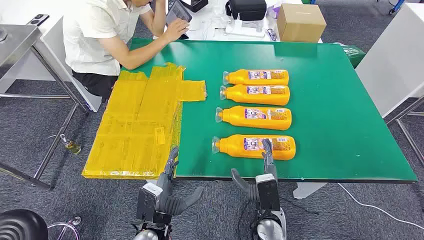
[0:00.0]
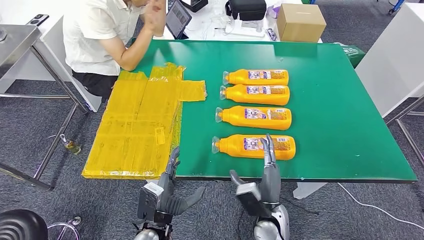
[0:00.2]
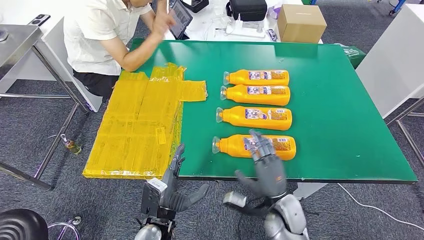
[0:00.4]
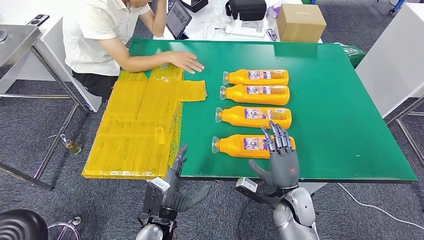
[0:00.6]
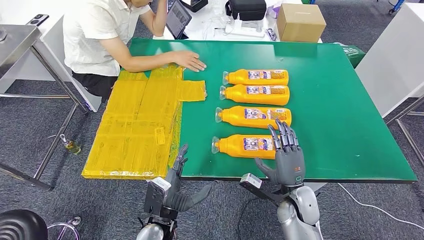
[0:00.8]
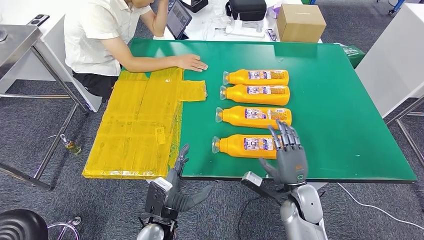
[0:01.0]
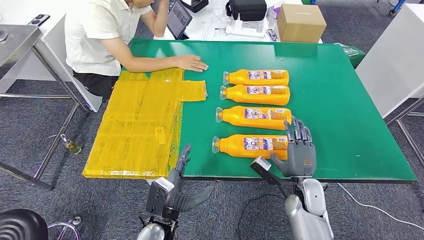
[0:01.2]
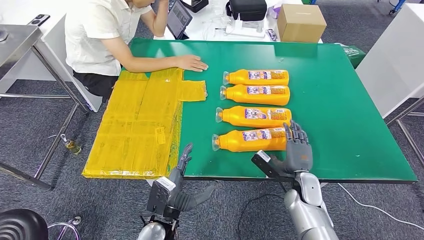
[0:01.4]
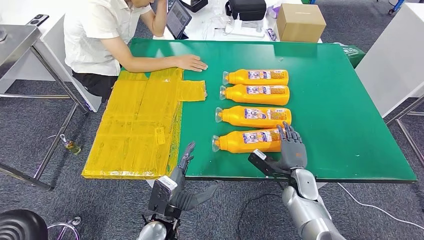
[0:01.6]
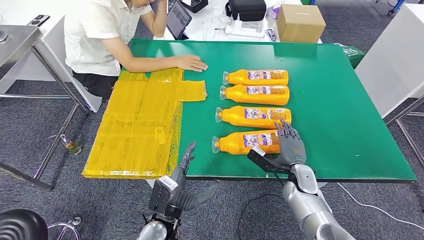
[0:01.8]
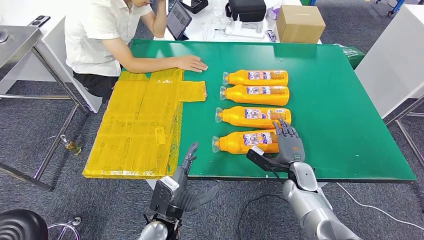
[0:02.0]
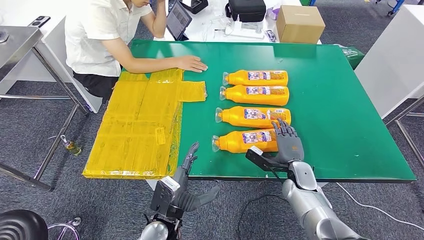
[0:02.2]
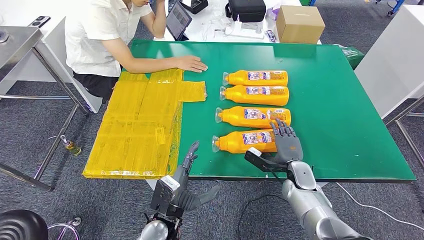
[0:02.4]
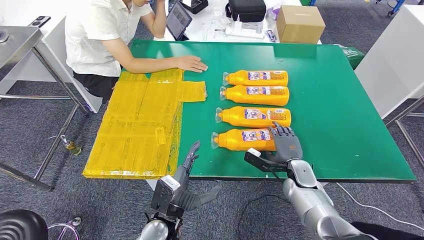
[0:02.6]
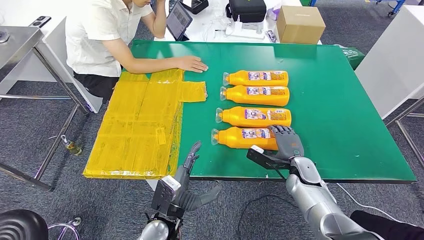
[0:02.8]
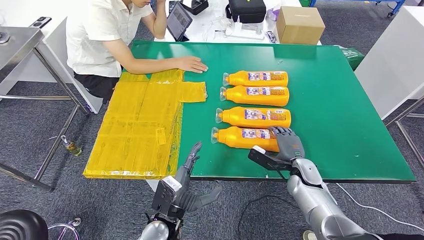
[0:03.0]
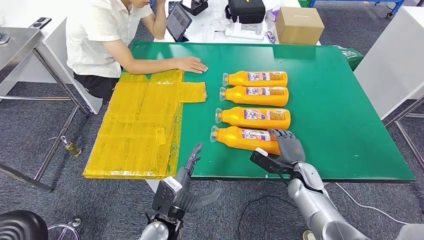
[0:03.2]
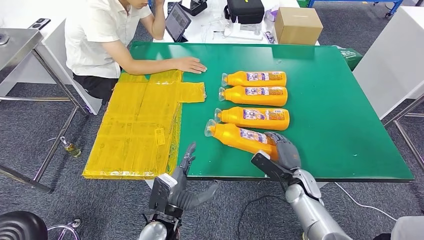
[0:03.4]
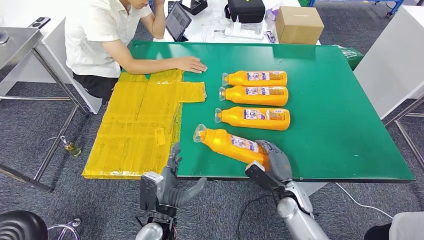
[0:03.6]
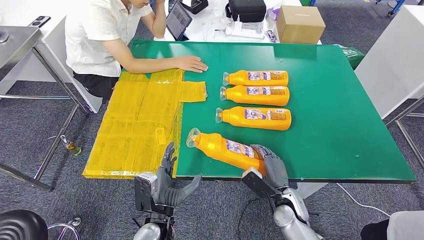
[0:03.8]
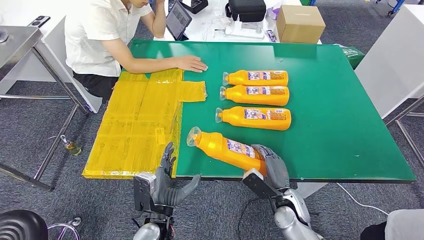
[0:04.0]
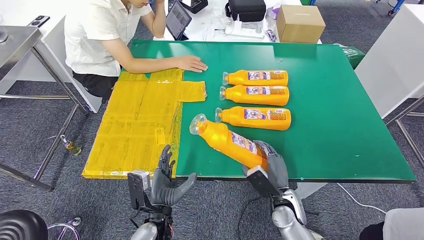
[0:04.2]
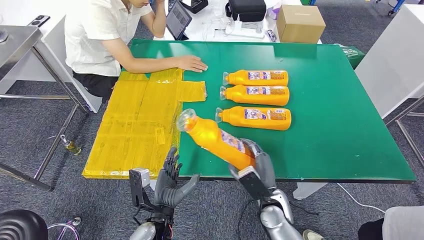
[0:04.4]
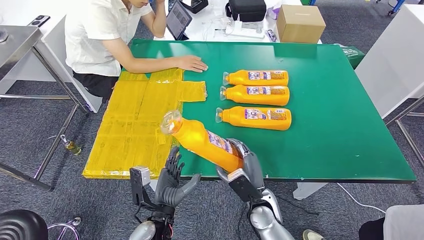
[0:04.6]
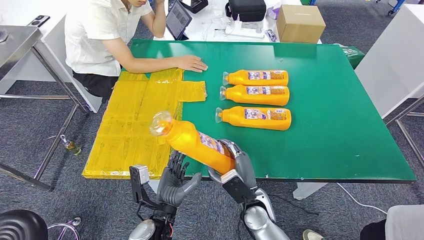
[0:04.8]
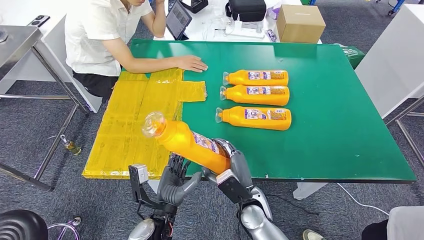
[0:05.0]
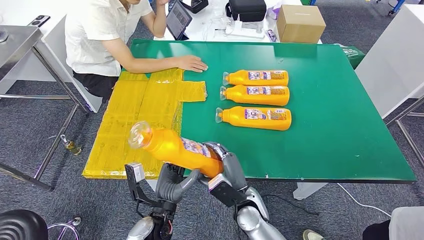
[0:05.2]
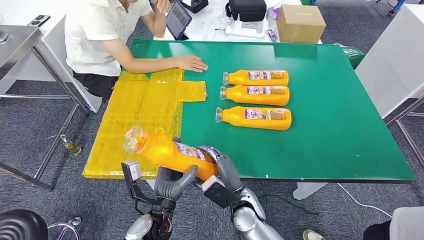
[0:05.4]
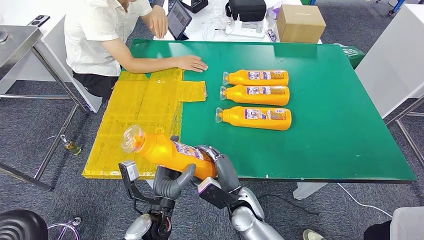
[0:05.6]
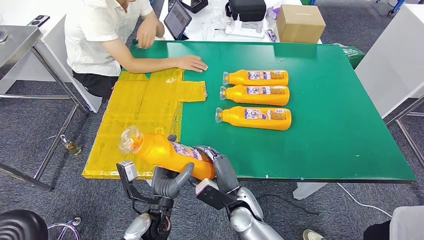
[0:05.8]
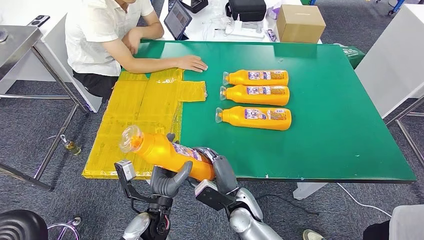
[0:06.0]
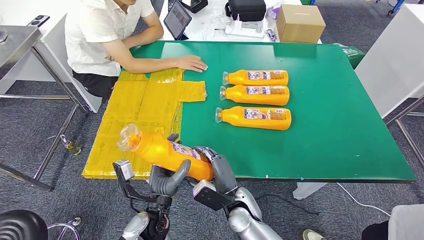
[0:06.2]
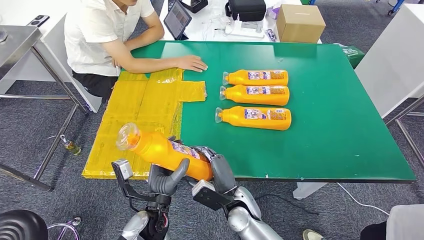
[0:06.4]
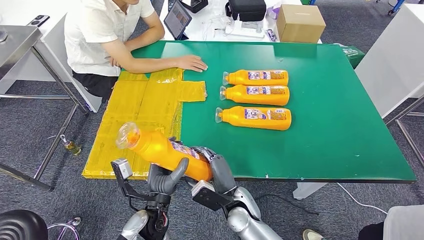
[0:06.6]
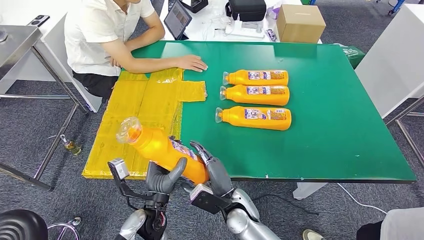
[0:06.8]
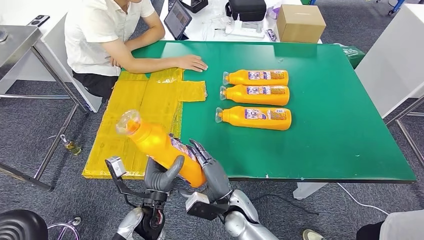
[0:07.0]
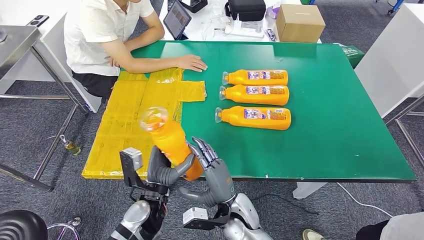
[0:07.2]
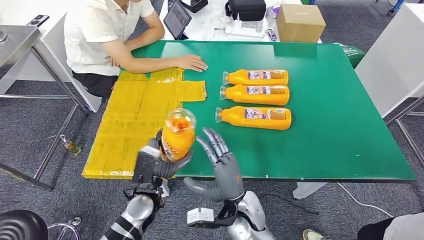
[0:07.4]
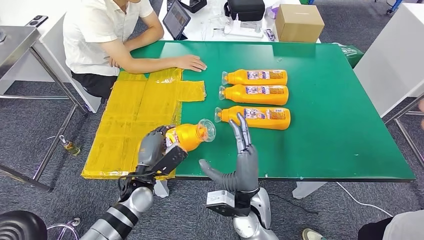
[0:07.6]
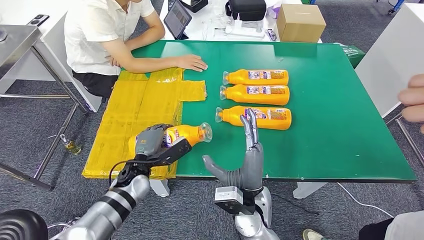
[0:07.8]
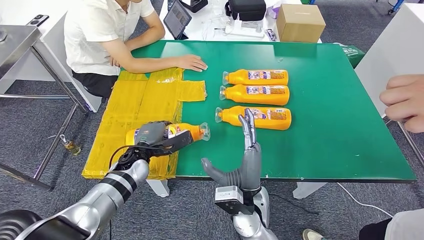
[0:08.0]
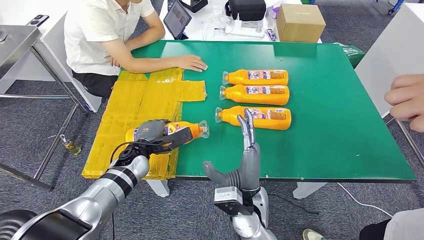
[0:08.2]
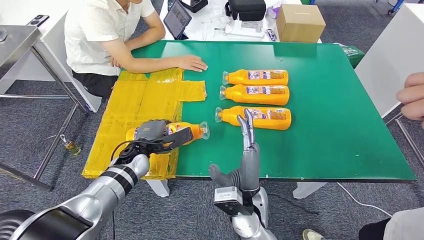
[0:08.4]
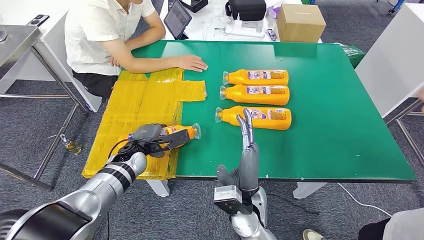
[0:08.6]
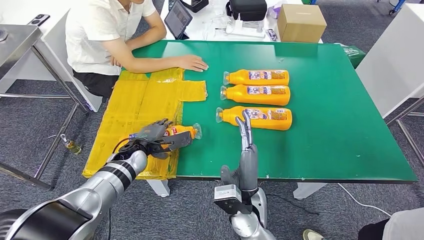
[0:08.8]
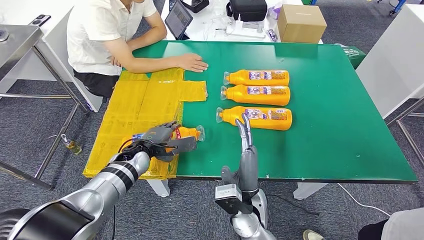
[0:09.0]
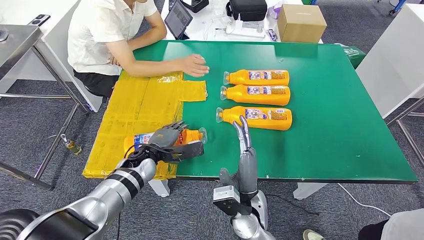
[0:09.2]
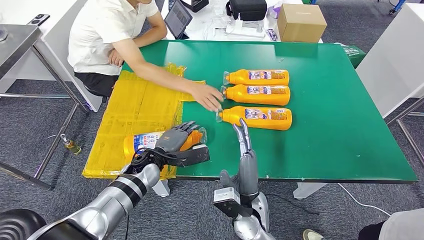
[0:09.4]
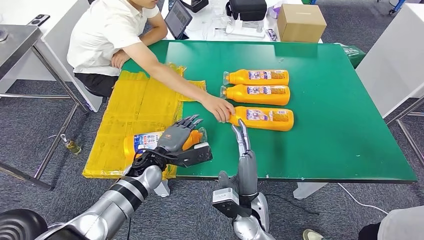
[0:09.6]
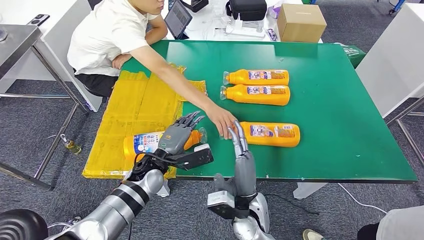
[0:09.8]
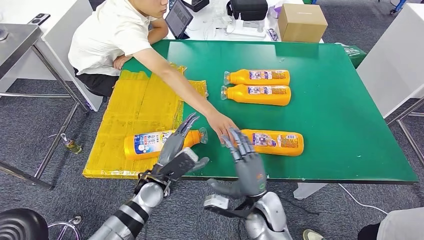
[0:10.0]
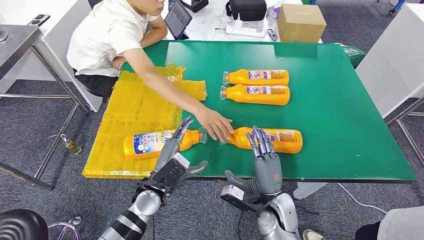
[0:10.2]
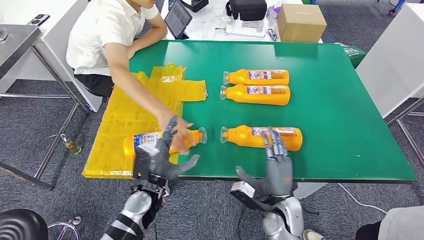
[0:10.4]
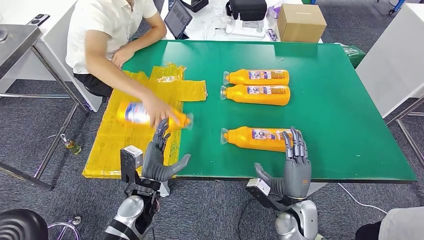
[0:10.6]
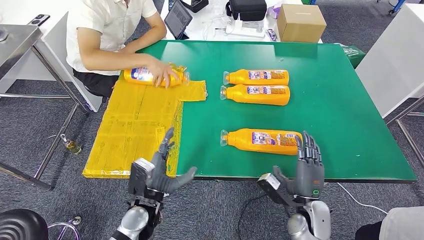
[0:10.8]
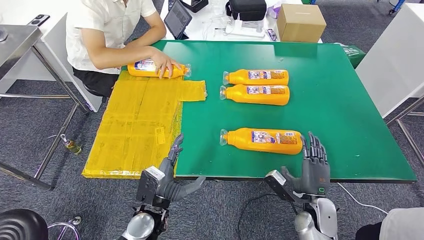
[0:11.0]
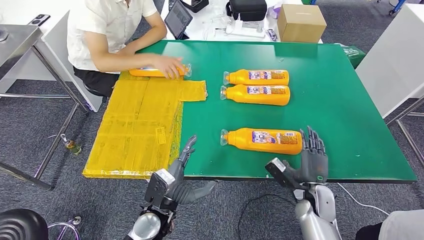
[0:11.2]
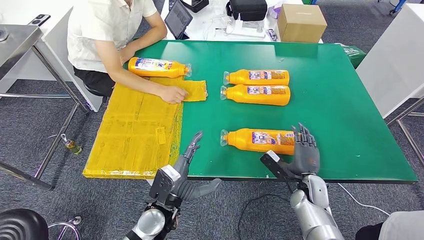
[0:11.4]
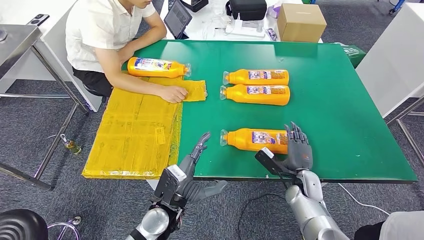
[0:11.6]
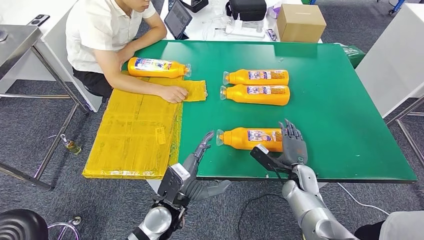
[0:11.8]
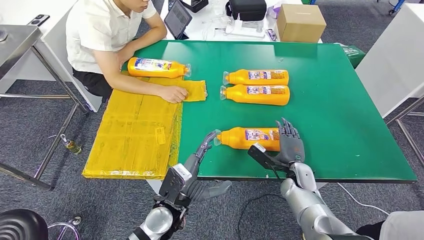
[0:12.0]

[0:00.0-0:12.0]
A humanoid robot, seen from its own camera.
Step, 0:00.0 to 0:06.0: Take the bottle from the table.
Step, 0:06.2 to 0:10.0: Flip the bottle to face forward.
0:01.6 to 0:03.0: The hands make only small movements.
0:03.0 to 0:04.4: The right hand goes about 15 cm to the left and backward.
0:04.4 to 0:06.0: The right hand shifts some 10 cm to the left.
0:06.0 to 0:07.6: The right hand is displaced upward by some 5 cm. The left hand is displaced forward and to the left by approximately 10 cm.
0:10.4 to 0:12.0: The left hand goes roughly 5 cm to the right. The right hand is displaced forward and to the right by some 15 cm.

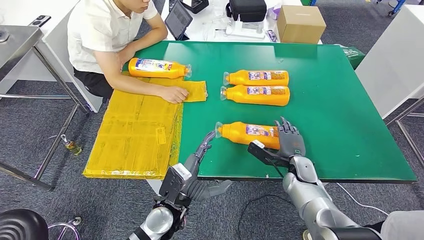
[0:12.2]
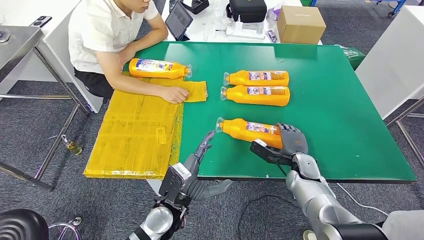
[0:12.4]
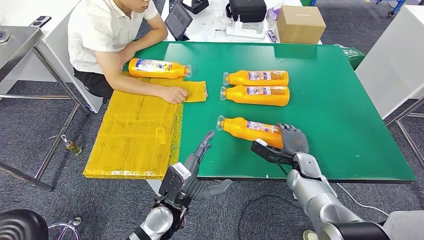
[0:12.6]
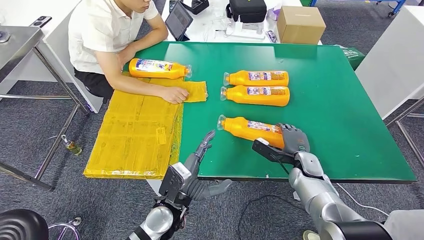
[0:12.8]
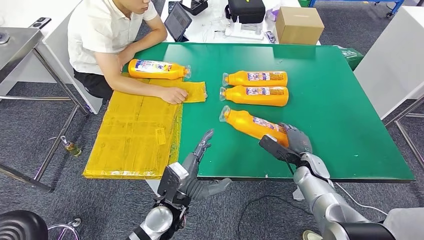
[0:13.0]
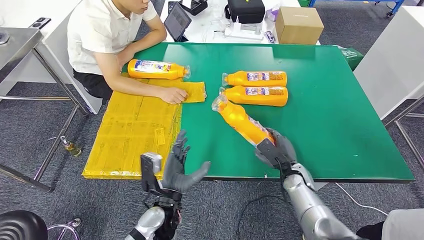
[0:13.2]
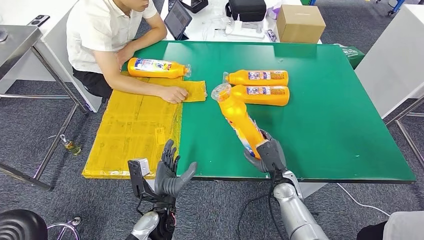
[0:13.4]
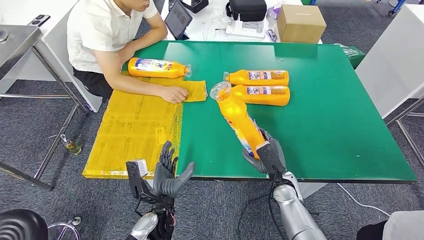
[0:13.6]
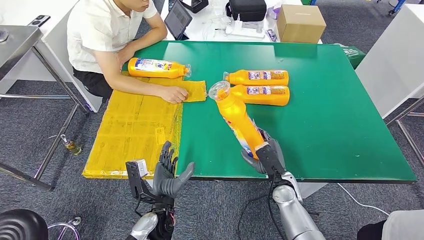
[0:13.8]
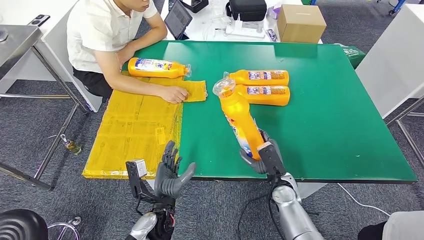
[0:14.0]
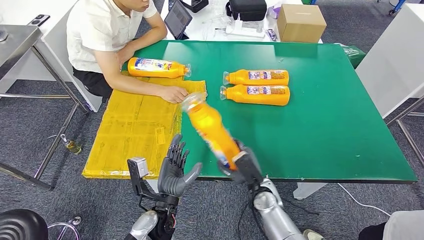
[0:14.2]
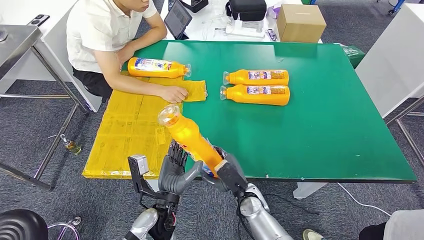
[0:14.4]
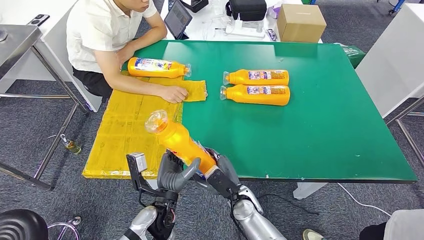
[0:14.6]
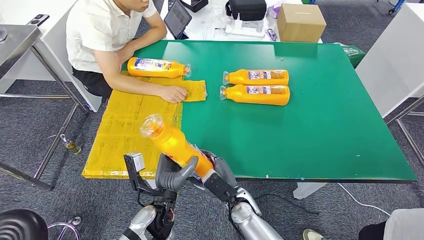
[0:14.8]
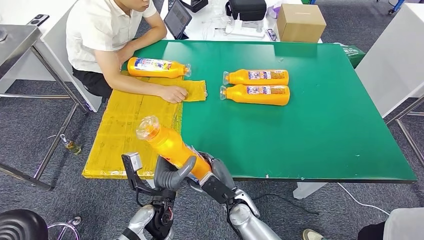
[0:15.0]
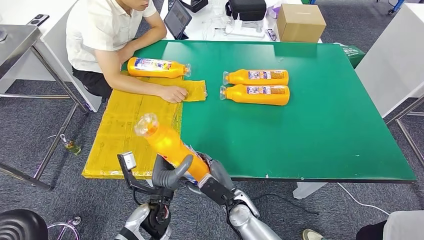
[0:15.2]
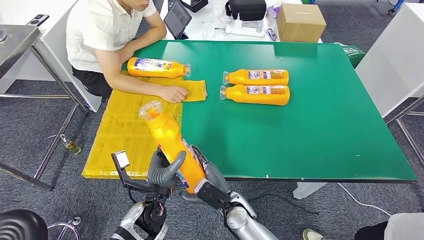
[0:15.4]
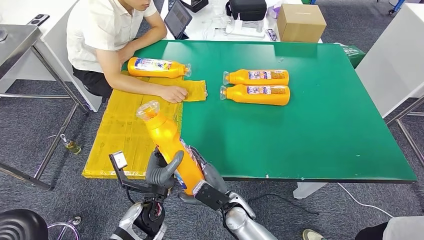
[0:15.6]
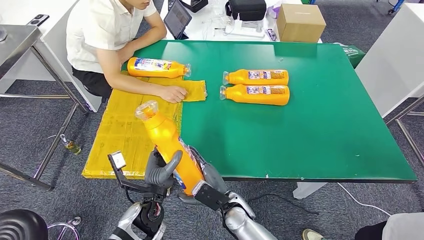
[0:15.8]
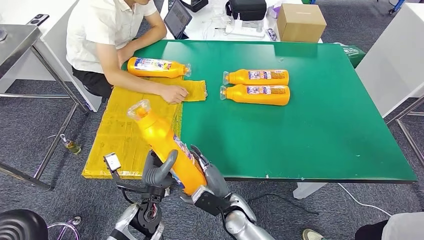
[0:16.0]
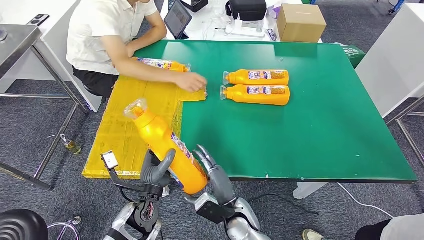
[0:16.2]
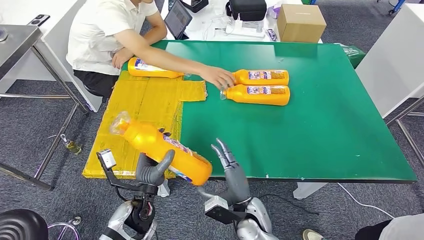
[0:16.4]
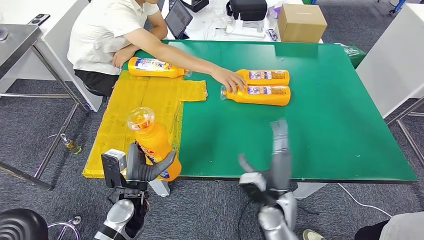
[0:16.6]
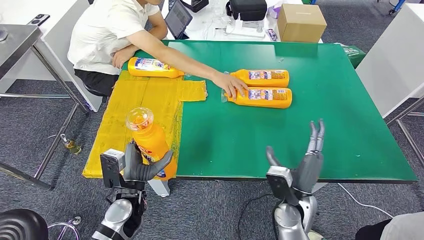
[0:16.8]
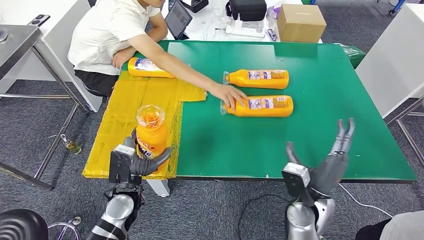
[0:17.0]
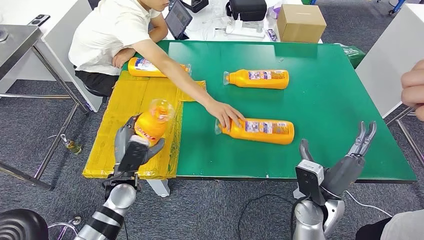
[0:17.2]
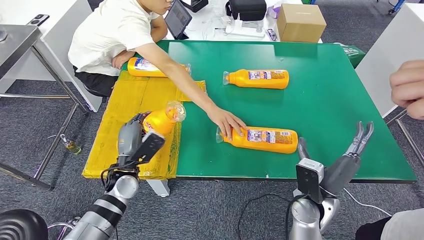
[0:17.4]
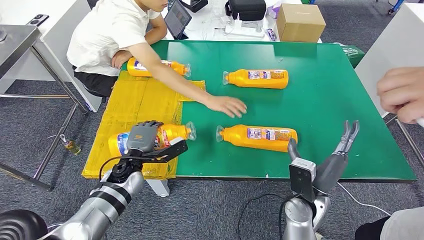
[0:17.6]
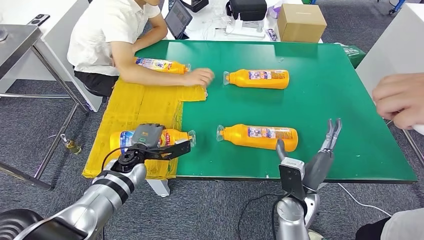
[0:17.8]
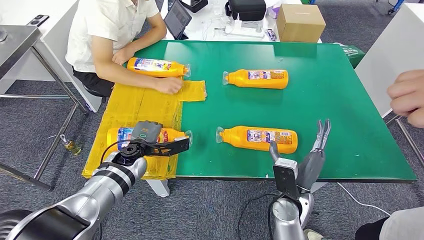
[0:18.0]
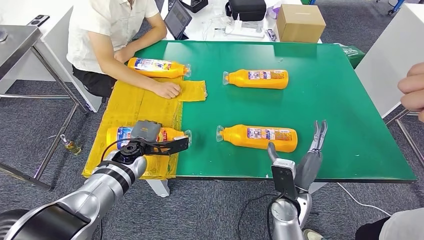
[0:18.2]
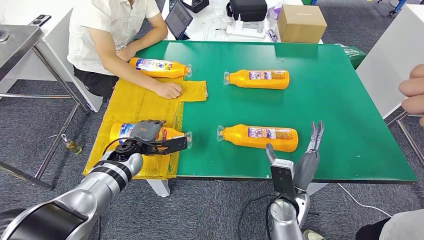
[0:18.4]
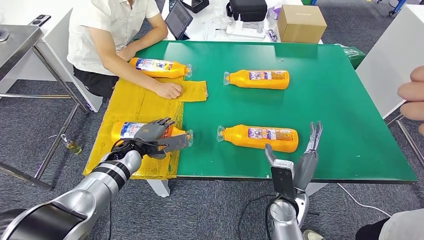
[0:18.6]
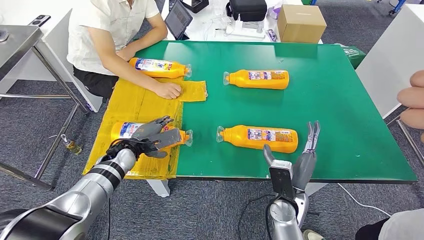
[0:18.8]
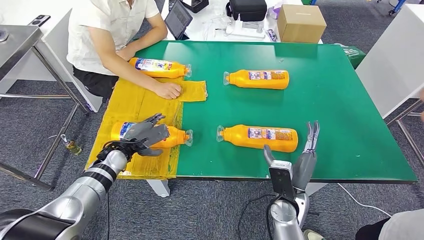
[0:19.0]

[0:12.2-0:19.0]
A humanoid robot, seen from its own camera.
Step, 0:12.2 to 0:14.6: Pick up the bottle from the table.
Step, 0:14.8 to 0:18.6: Flip the bottle to face forward.
0:12.2 to 0:13.6: The right hand travels to the left by roughly 5 cm.
0:13.6 to 0:15.0: The right hand travels to the left by about 15 cm.
0:15.0 to 0:16.2: The hands move only a little.
